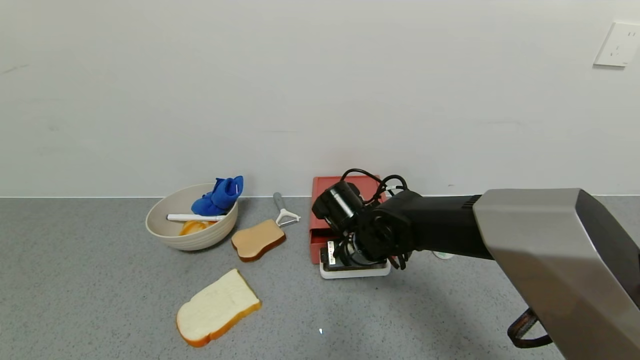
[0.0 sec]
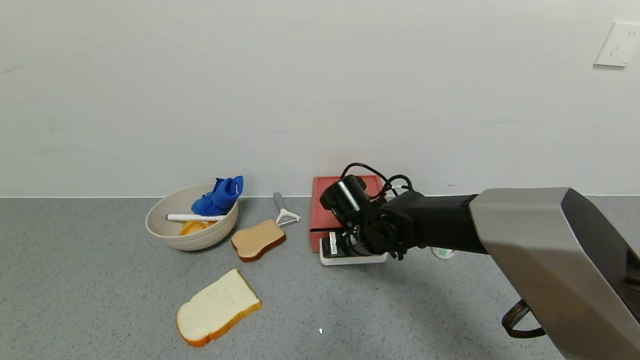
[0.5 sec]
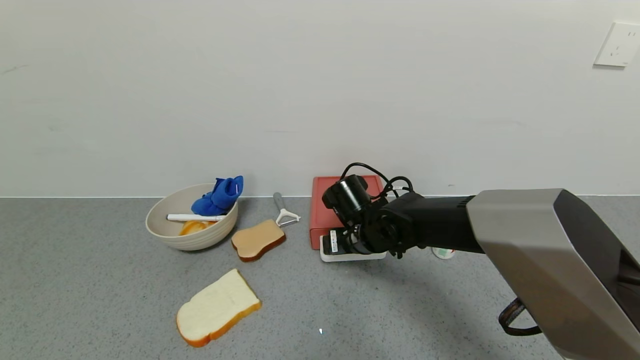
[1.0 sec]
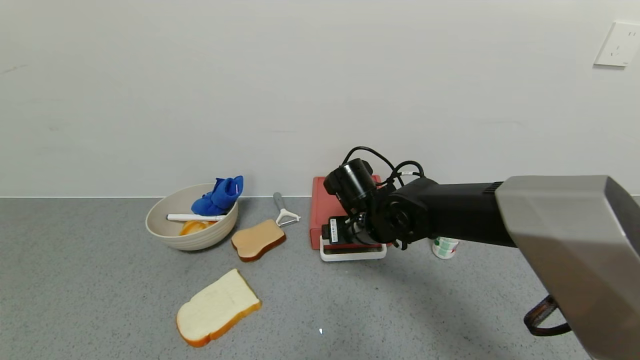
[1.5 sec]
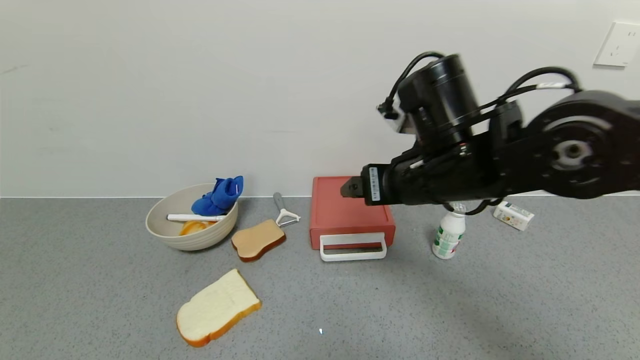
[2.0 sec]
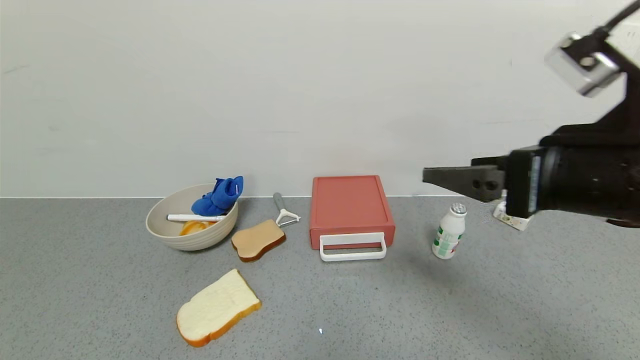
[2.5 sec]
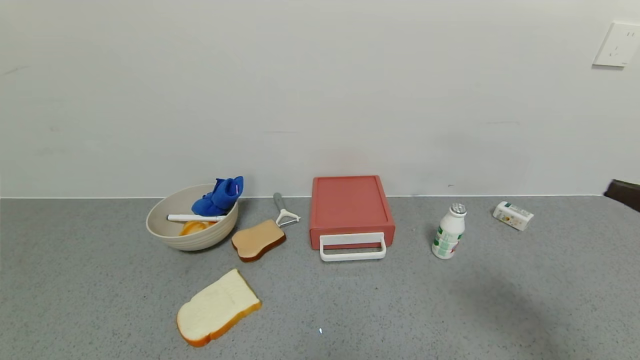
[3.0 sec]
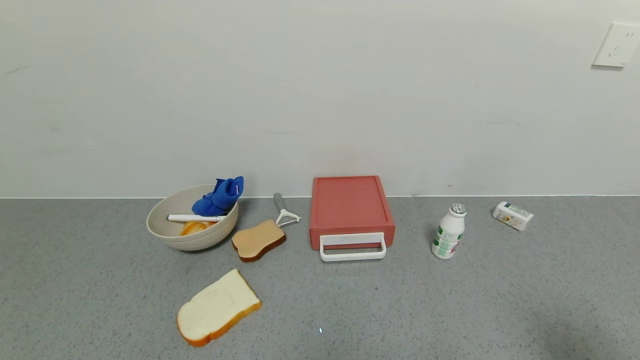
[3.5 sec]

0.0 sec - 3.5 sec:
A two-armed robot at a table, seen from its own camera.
Task of the whole recording: use the gripper to open the drawer and close the red drawer.
0.0 sec - 2.0 sec: The right gripper moves upward, to the right and backward, about 20 cm.
2.0 sec - 3.5 sec: The right gripper travels backward and to the right by about 35 cm.
